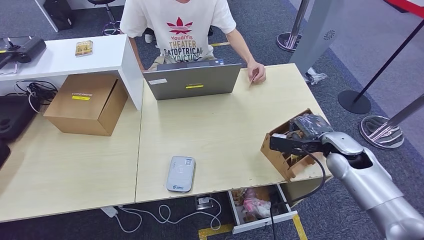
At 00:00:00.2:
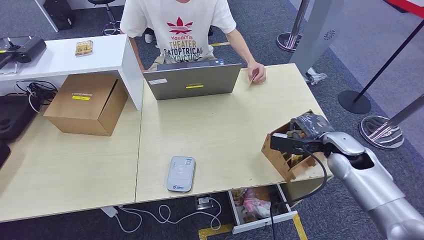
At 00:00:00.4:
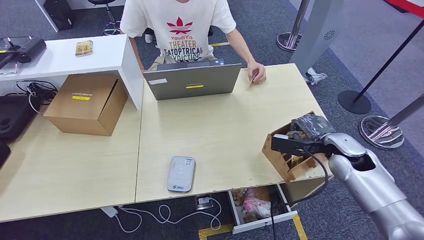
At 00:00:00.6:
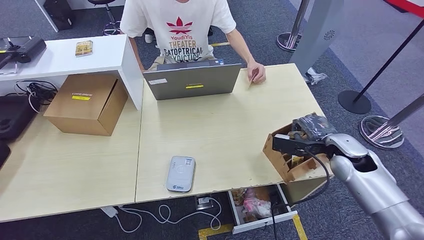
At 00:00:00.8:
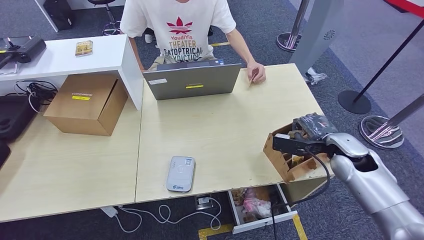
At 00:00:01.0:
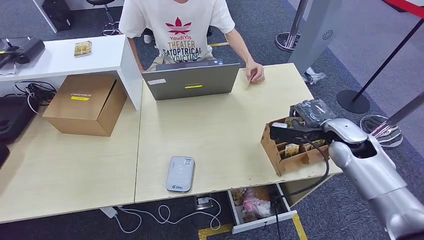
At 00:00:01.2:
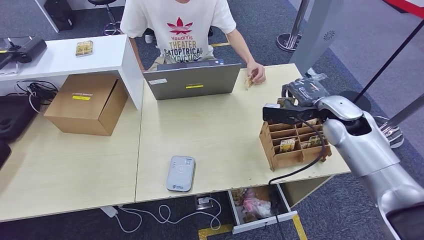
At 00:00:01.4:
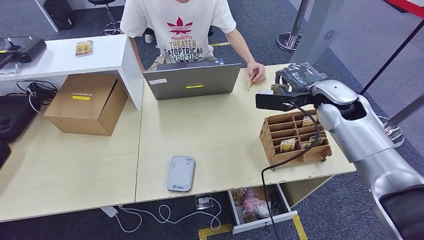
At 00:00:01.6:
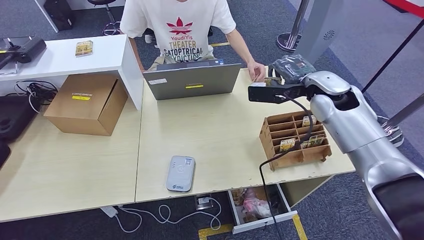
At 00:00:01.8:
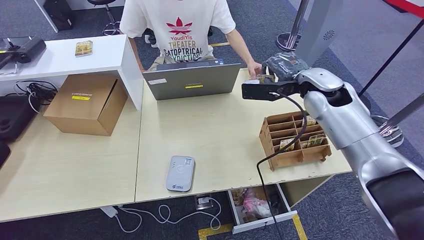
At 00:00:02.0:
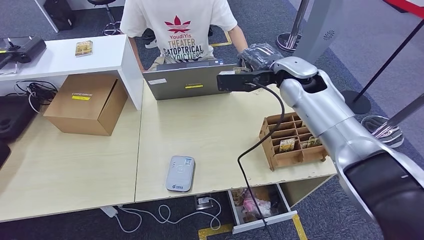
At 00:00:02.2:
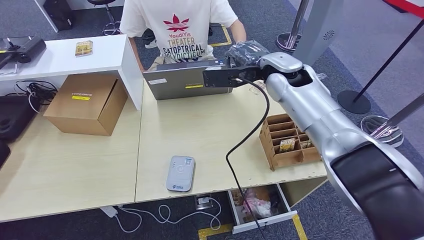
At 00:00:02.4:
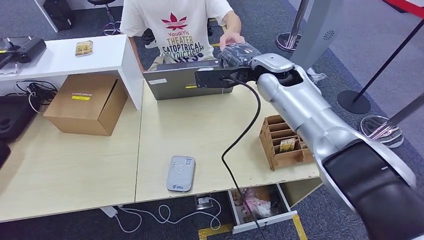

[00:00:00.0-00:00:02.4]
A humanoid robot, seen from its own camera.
Step, 00:00:00.8 to 00:00:02.4: Hand the room key to the person.
00:00:00.0 to 00:00:01.2: The right hand is displaced upward and forward by about 10 cm.
00:00:01.2 to 00:00:02.4: The right hand goes approximately 20 cm to the left, forward and upward.
